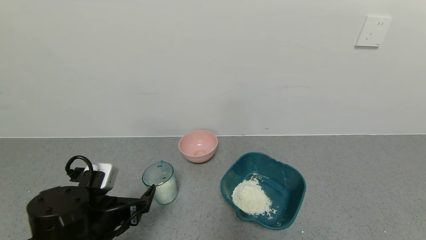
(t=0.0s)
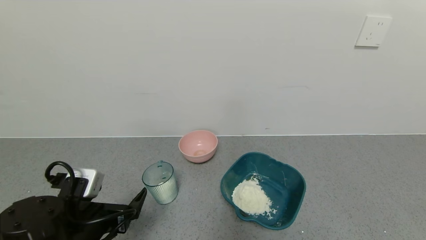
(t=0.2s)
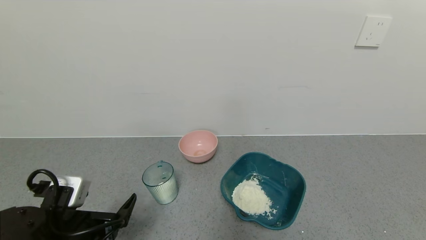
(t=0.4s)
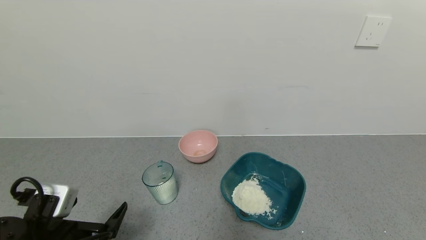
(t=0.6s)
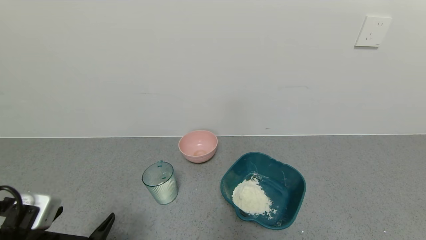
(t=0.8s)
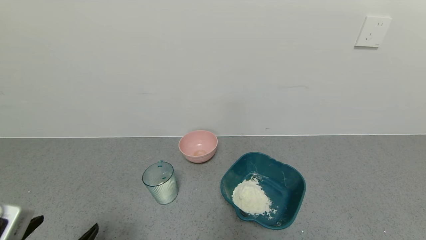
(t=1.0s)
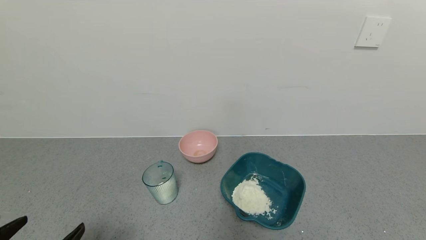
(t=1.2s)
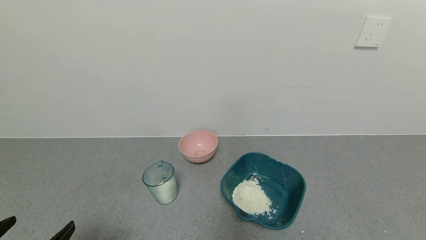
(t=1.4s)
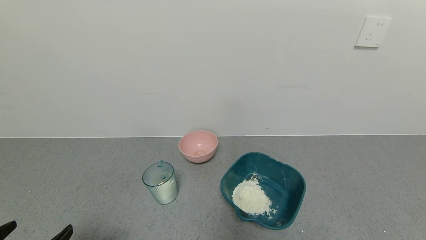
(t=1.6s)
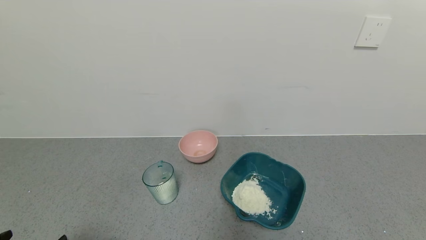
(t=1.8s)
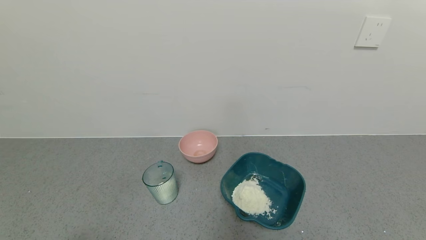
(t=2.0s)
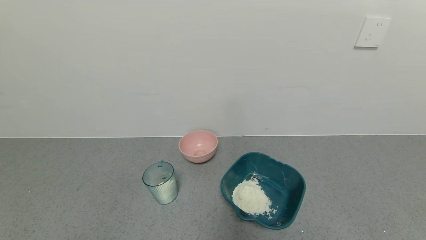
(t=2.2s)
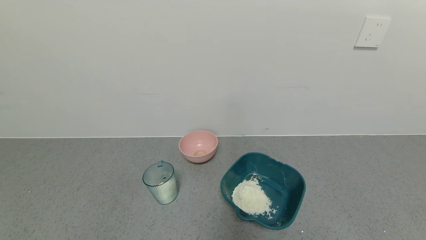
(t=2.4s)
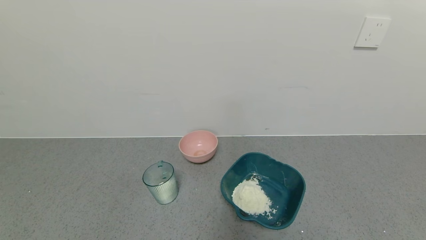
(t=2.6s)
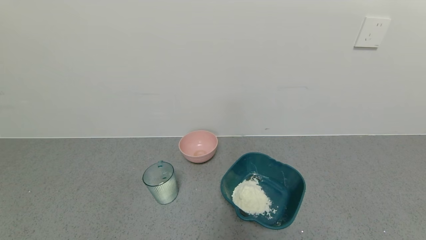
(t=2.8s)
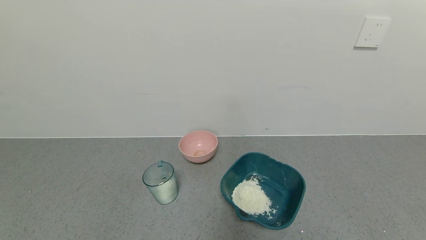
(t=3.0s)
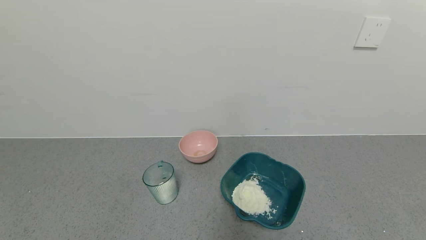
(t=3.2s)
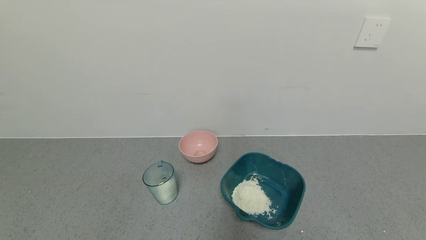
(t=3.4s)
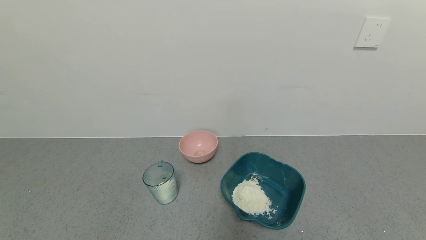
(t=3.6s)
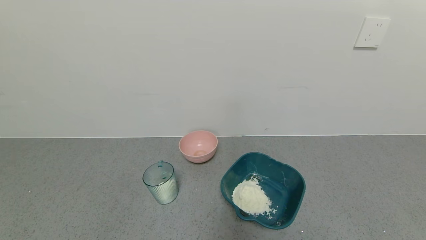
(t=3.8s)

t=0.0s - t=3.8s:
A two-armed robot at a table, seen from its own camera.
Task of the whole recording: use a gripper to pick up the cup and pour the powder into a bowl or tray.
t=0.0s - t=1.2s: The left gripper shifts about 15 cm backward and to the left.
t=1.2s - t=2.6s: The left gripper travels backward by roughly 10 cm.
